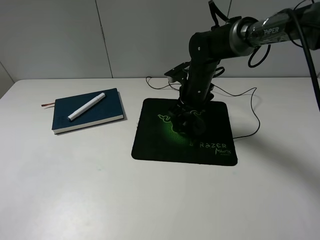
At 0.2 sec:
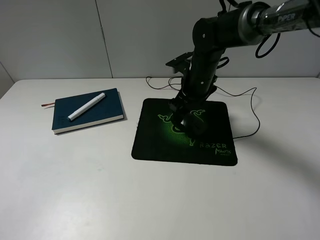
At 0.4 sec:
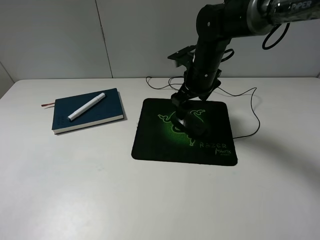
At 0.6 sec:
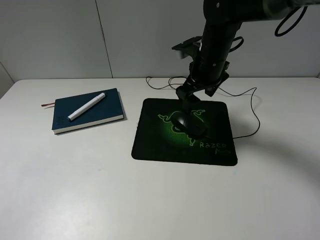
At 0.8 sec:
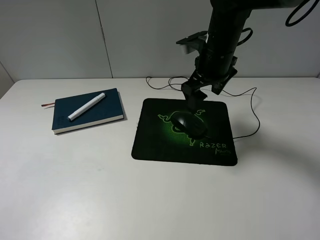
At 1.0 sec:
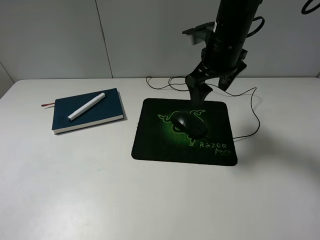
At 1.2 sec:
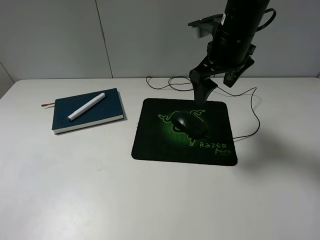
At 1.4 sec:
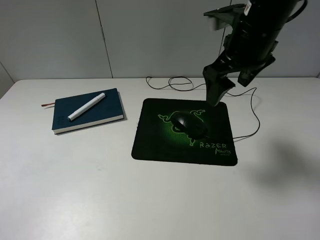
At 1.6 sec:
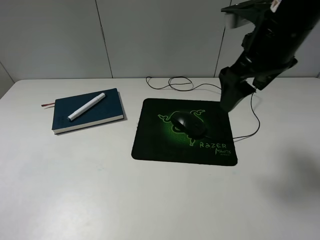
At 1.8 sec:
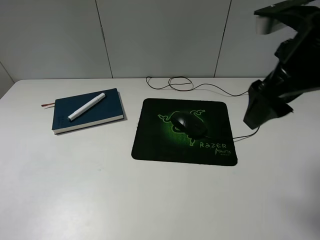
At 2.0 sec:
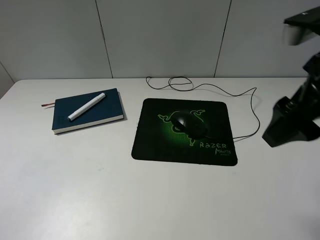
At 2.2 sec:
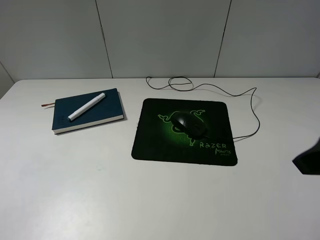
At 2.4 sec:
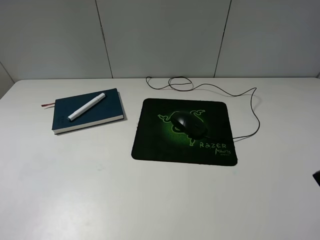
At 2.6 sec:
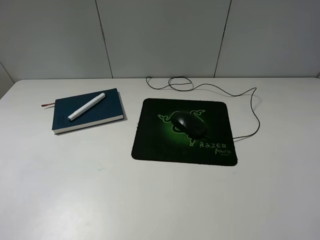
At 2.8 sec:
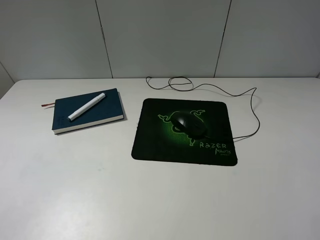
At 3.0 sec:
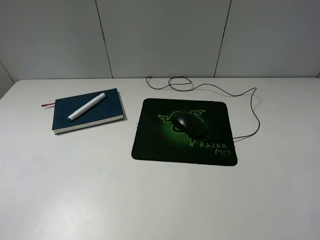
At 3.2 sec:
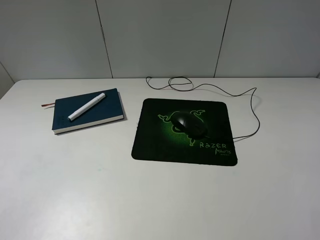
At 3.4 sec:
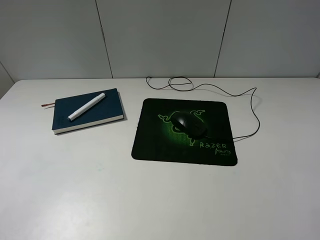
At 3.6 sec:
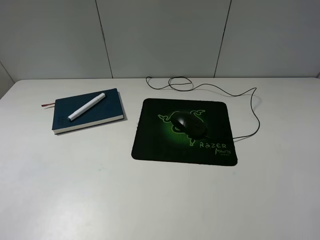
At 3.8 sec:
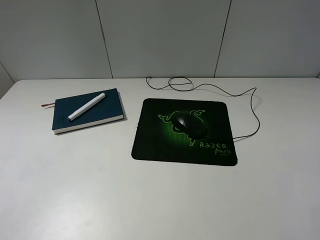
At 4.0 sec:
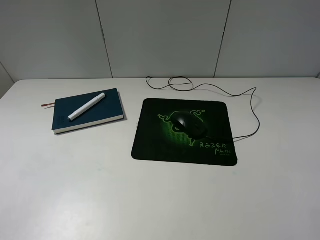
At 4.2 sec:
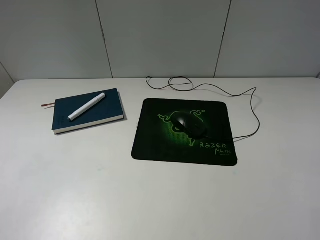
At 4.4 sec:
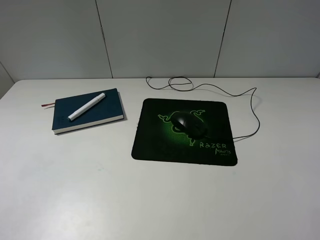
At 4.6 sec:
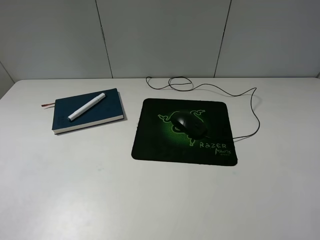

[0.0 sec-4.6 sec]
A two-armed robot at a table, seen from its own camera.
0.0 sec to 1.6 sec: The right gripper shifts about 25 cm upward, backward and to the right.
1.6 sec to 3.0 sec: The right gripper is displaced backward and to the right by roughly 30 cm.
